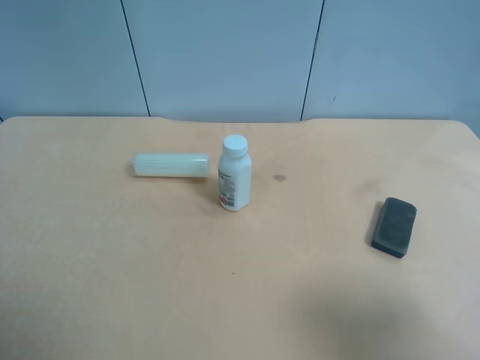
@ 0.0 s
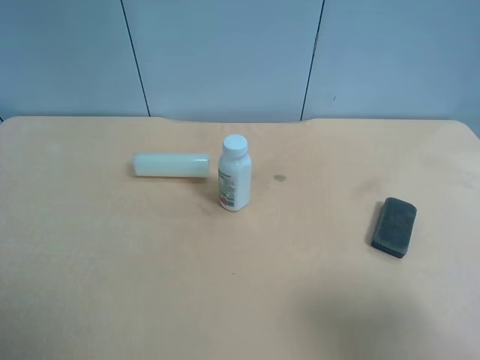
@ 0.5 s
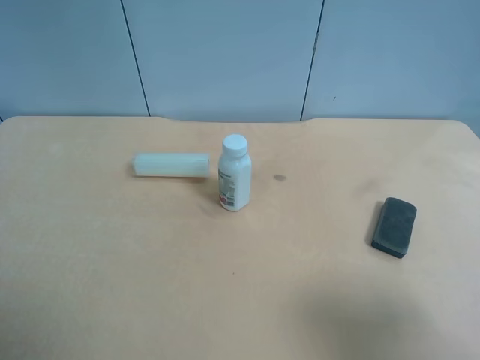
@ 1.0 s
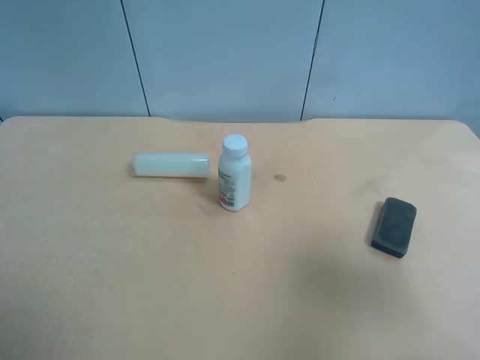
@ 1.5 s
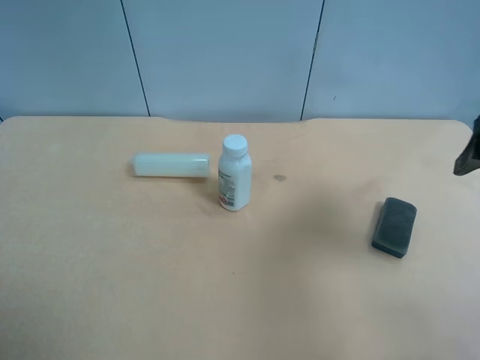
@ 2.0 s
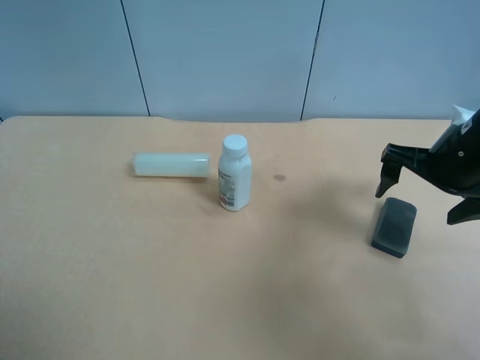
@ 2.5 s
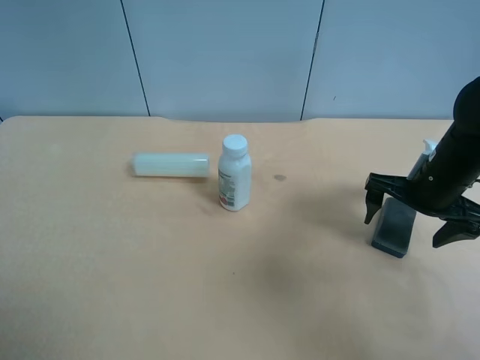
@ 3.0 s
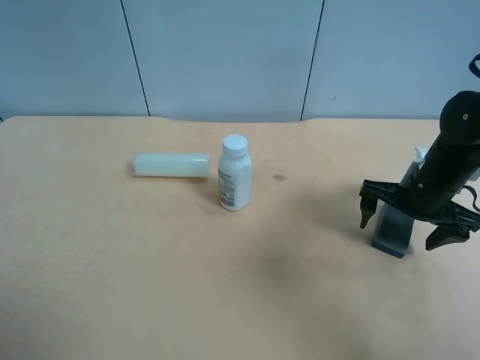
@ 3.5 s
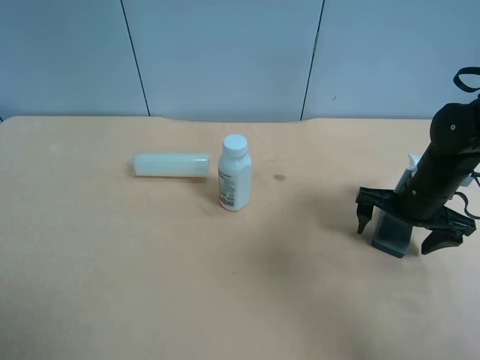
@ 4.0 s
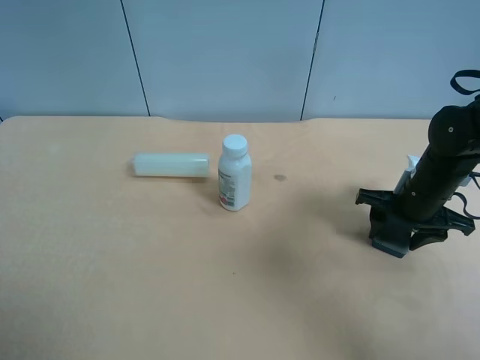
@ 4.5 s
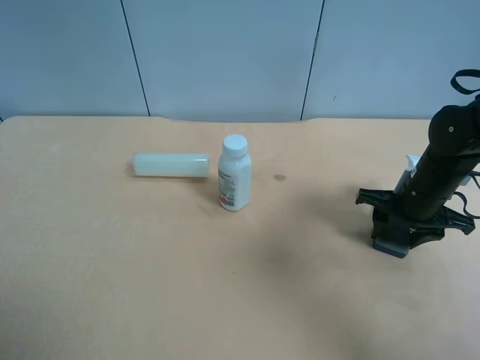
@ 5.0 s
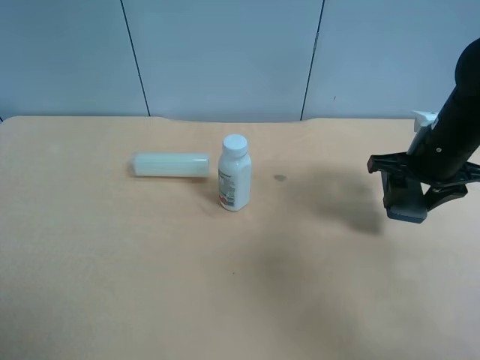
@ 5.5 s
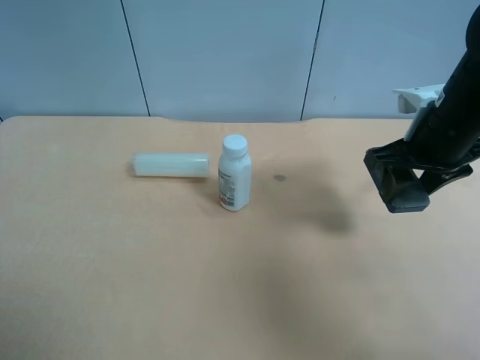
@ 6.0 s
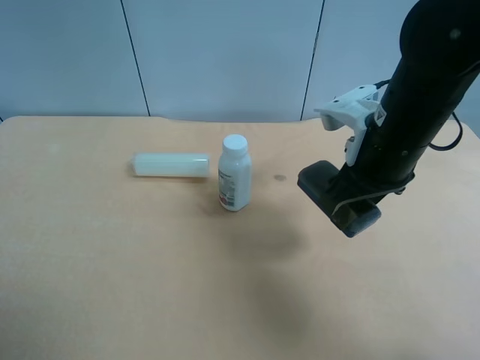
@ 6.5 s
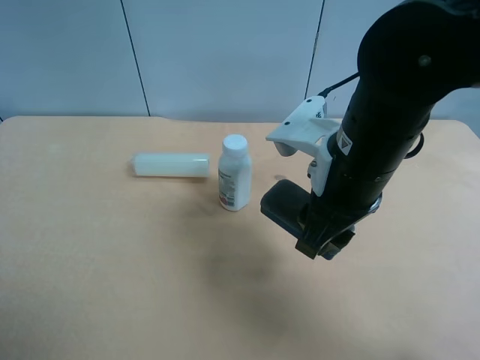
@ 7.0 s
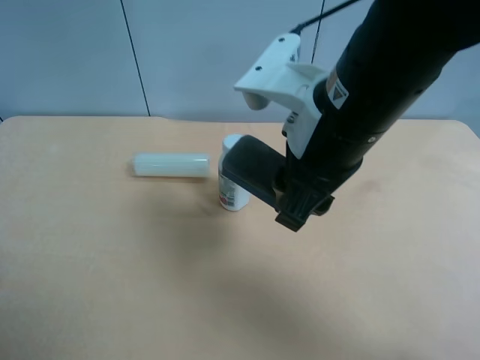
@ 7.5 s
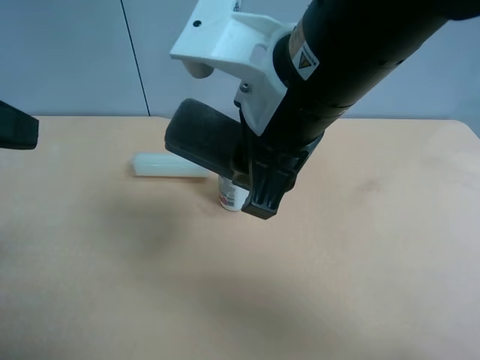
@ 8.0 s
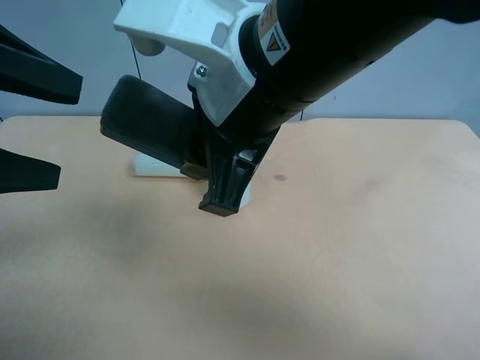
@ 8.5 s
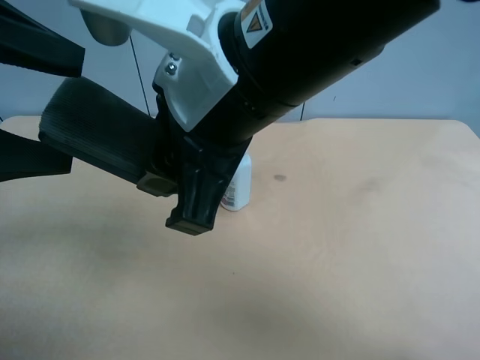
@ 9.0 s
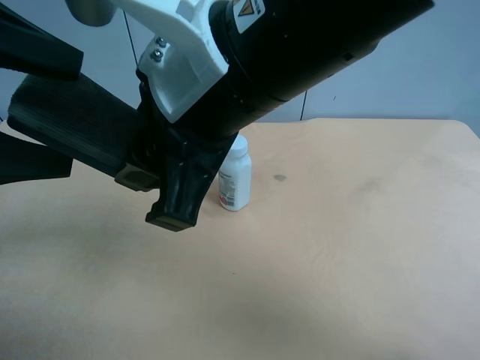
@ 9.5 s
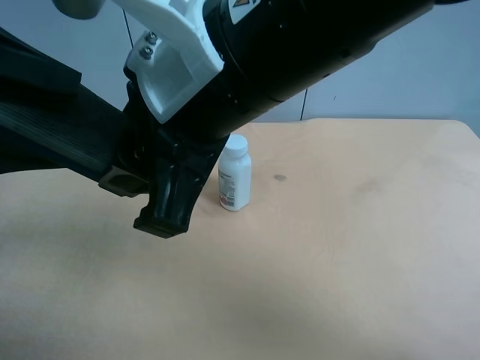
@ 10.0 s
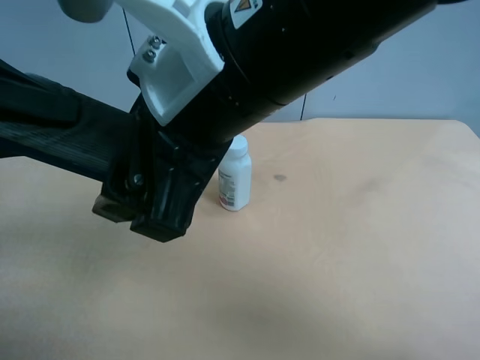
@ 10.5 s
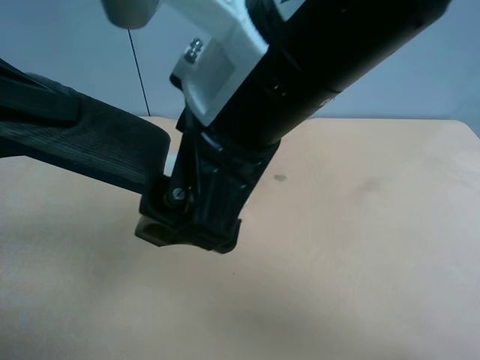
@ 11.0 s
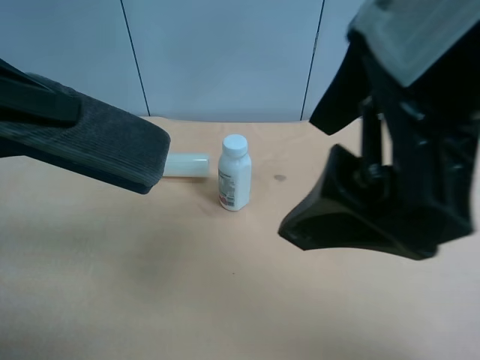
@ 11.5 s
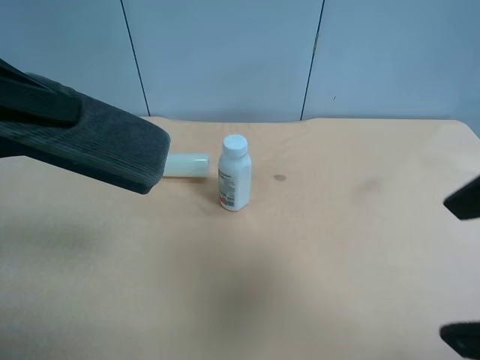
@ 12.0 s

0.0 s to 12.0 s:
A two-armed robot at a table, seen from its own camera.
Task of the whole recording: use the right gripper to pick up the item and transfer it from the right gripper to the left gripper.
0.0 to 2.0 s: The right gripper goes roughly 20 cm forward.
2.0 to 4.0 s: The right gripper heads downward and forward, covering roughly 20 cm.
4.0 to 6.0 s: The right gripper heads upward, covering some 10 cm, and closes its fingers.
6.0 to 8.0 s: The left gripper goes some 15 cm forward, upward and to the right; the right gripper heads to the left, backward and upward, covering roughly 25 cm.
8.0 to 10.0 s: The left gripper closes up.
10.0 to 12.0 s: The left gripper closes. The right gripper travels to the right and backward by some 25 cm, and opens up.

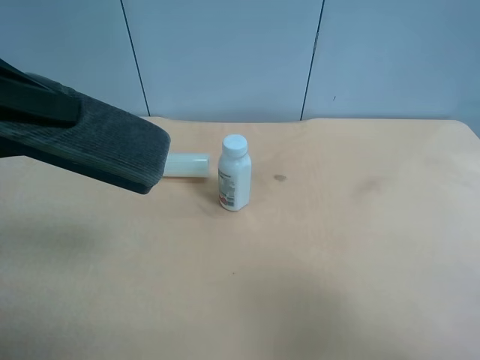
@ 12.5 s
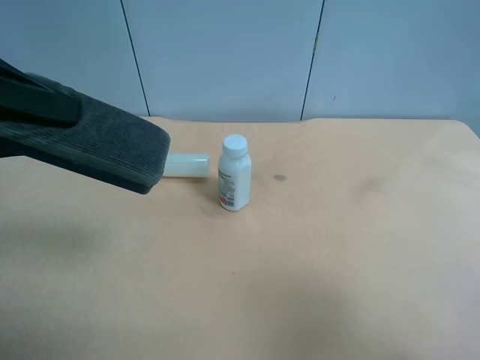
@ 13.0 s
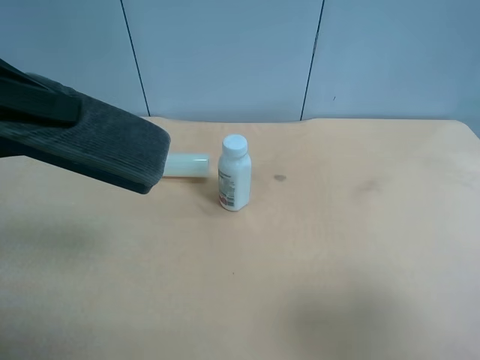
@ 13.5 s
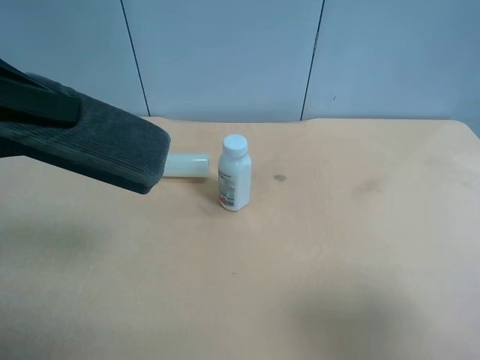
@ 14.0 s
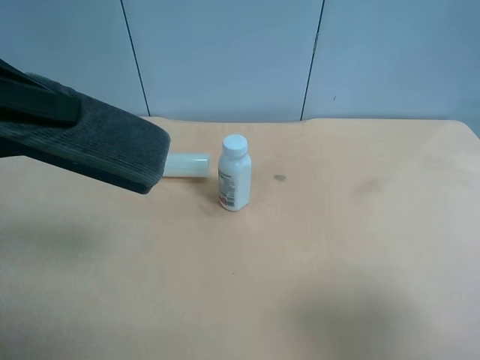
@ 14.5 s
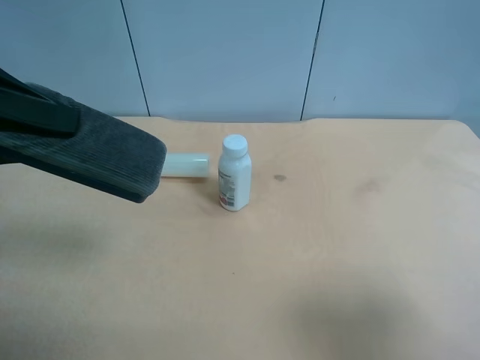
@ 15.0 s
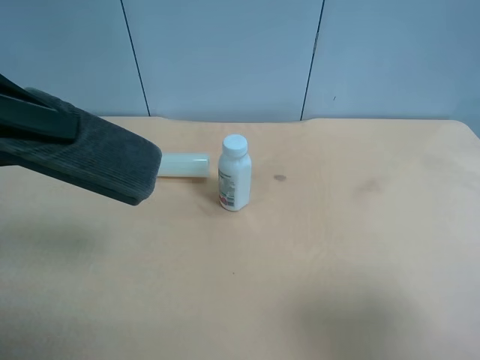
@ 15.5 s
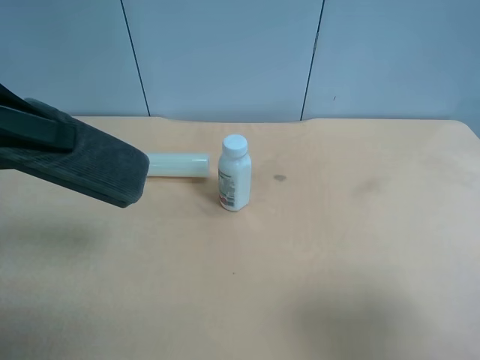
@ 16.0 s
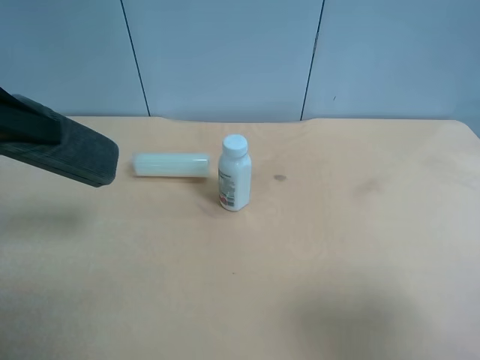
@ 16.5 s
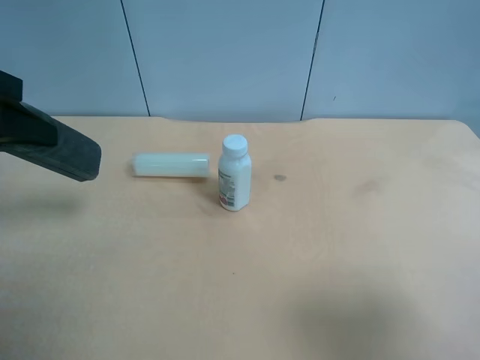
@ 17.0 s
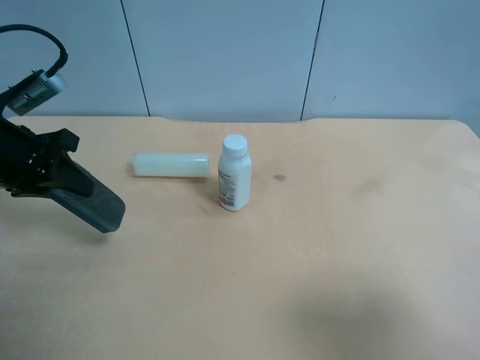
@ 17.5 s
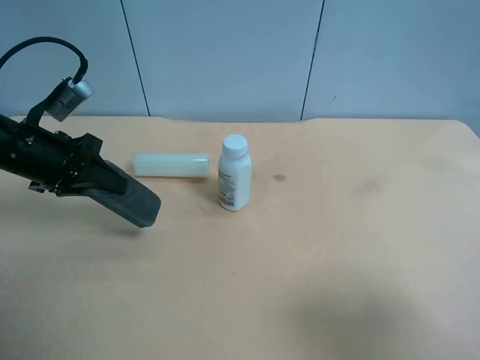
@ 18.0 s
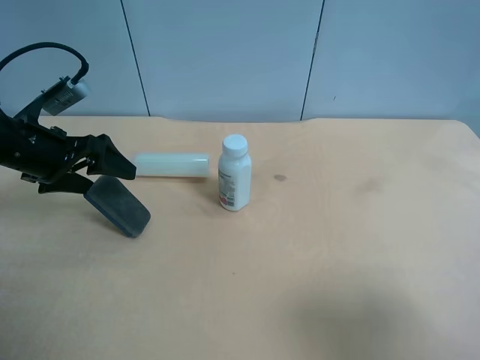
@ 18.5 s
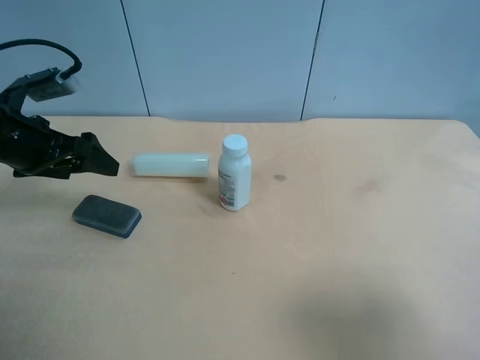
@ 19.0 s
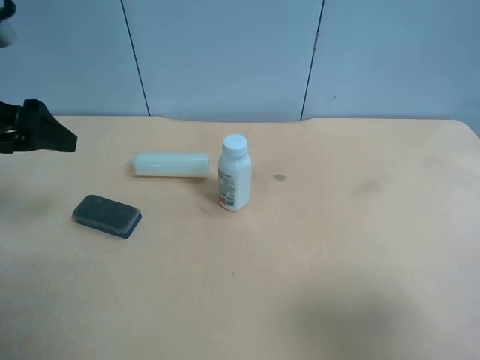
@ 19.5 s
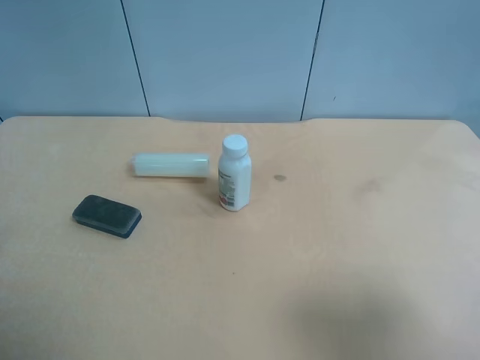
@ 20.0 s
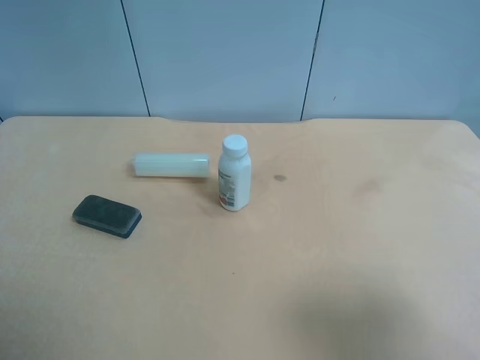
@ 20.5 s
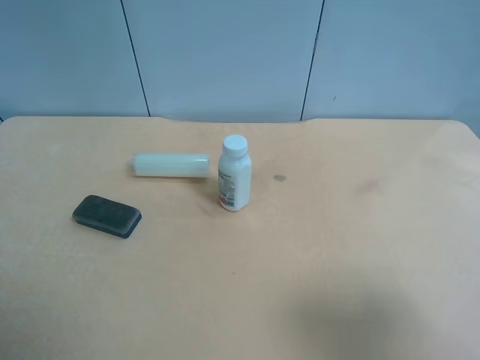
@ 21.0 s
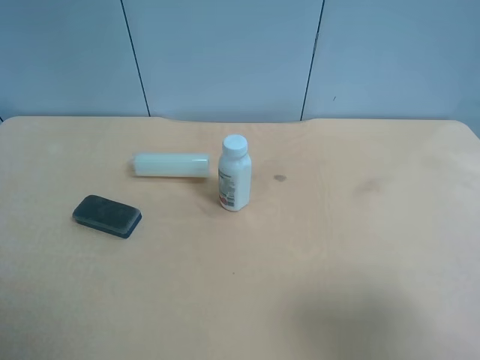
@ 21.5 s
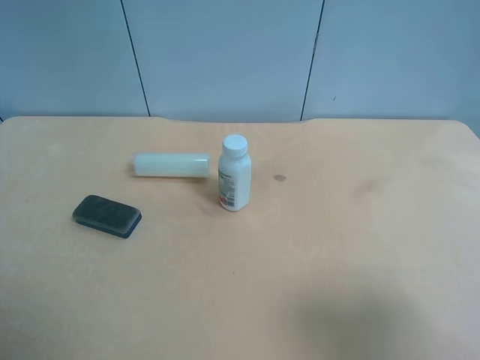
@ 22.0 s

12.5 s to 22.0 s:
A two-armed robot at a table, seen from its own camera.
Task of the whole recording: use the right gripper to pick up the item and transfer it from the right gripper to the left gripper.
16.5 to 18.0 s: The left gripper is displaced downward and forward by roughly 15 cm.
18.0 to 20.0 s: The left gripper shifts roughly 25 cm backward and upward, and opens.
